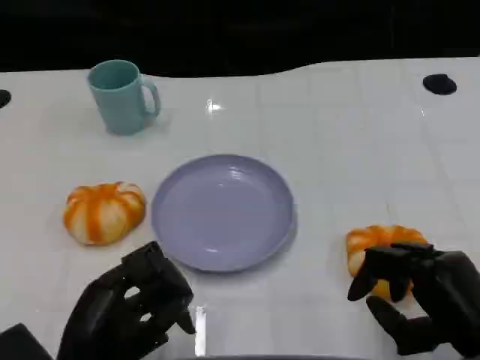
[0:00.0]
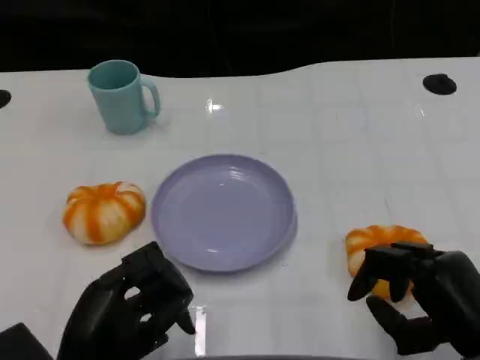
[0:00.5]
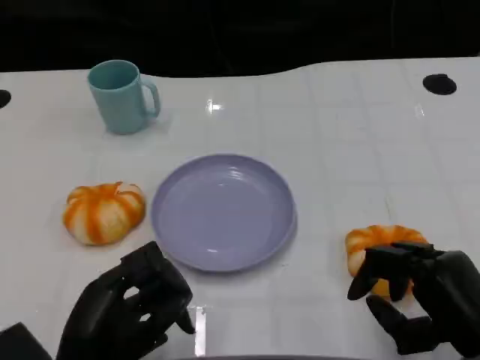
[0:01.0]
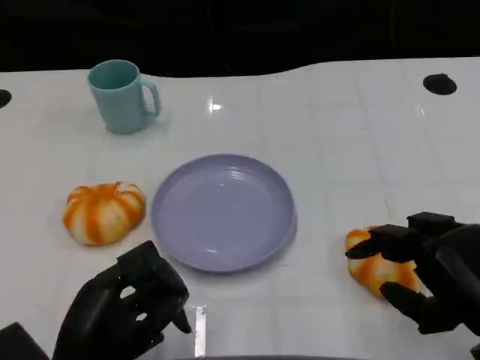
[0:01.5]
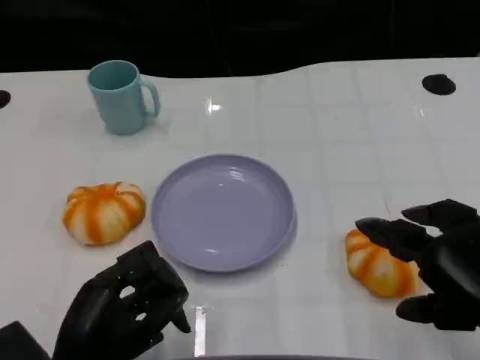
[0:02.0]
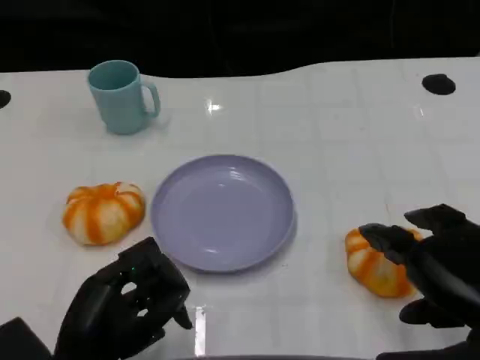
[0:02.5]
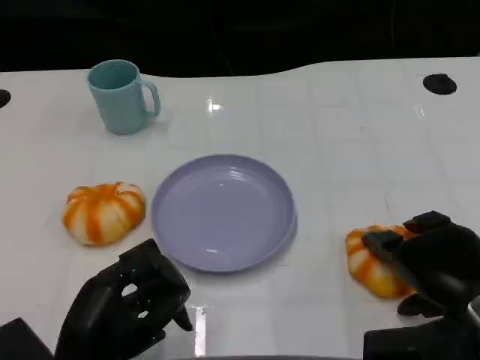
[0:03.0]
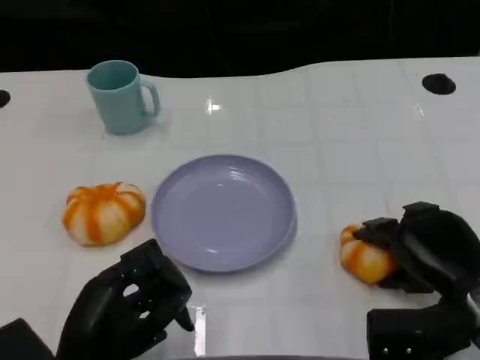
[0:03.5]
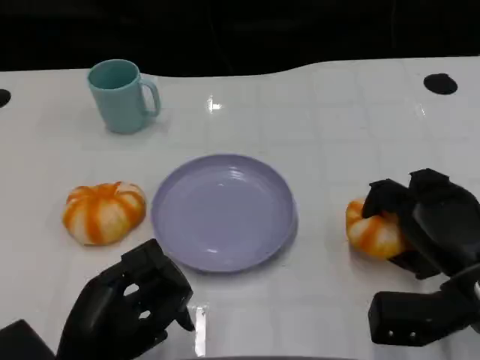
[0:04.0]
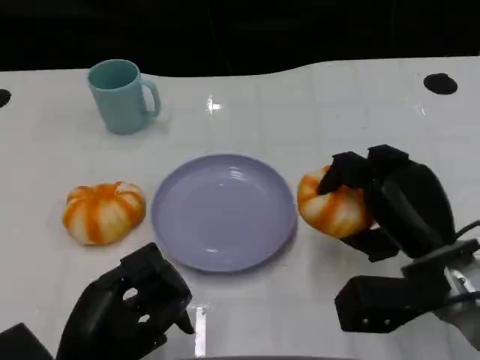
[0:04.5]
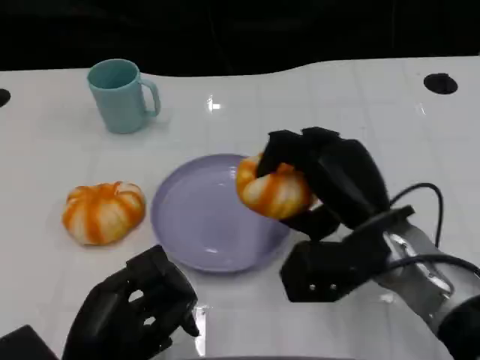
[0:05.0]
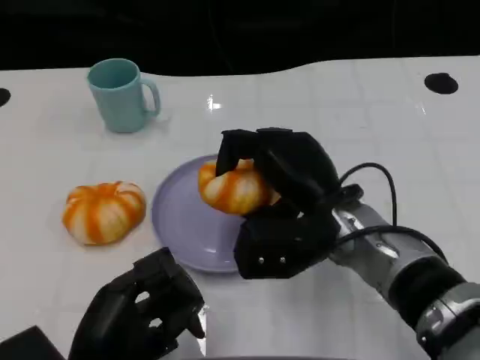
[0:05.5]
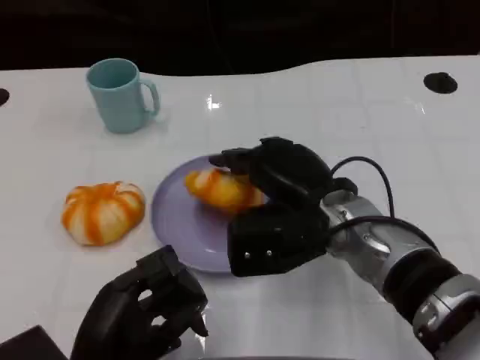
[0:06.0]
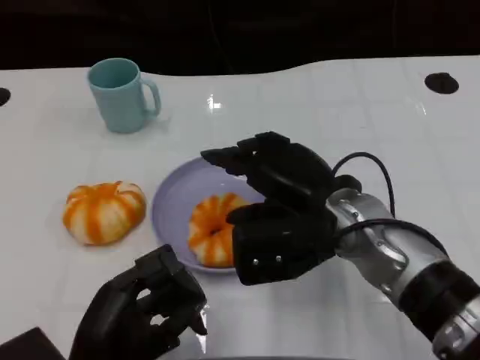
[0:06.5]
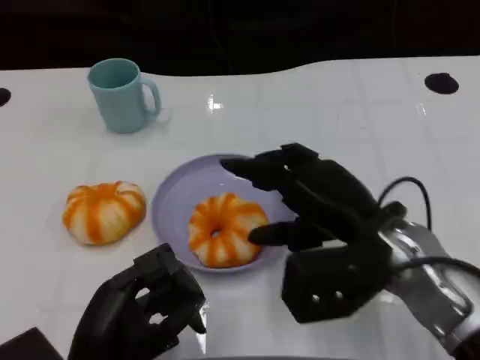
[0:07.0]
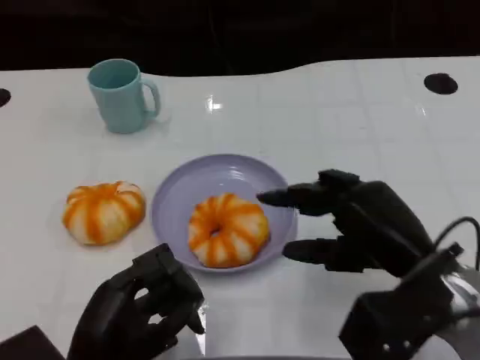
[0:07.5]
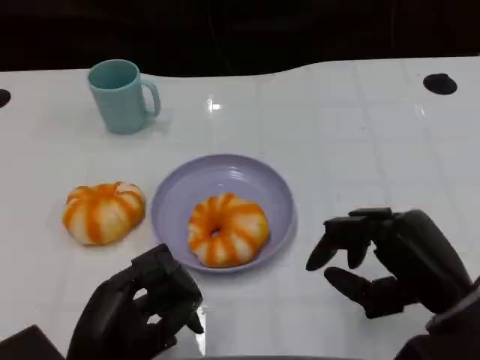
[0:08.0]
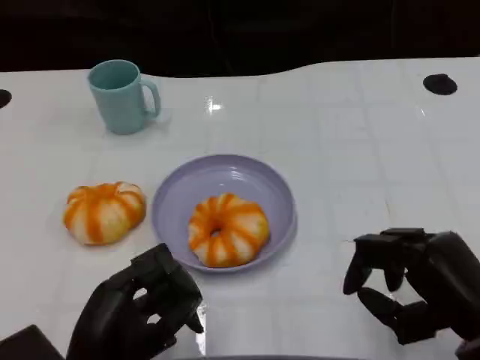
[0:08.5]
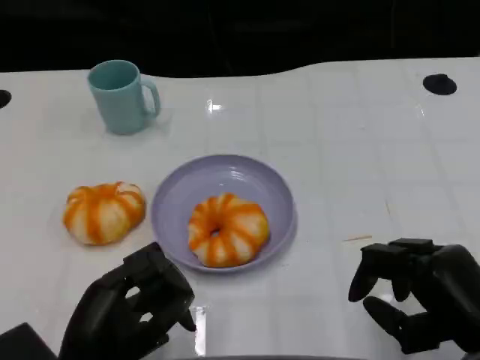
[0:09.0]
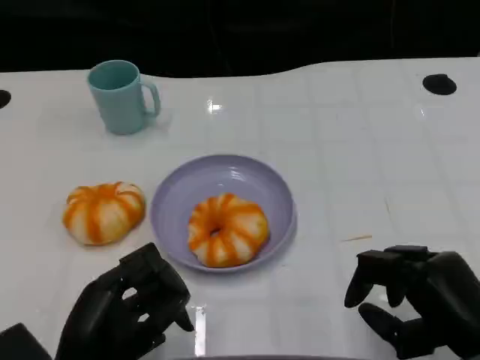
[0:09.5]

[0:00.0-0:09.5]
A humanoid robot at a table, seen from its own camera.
Task of the whole recording: Grasp the bread from the table and place it into the plate.
0:00.0 to 0:02.0: The right hand heads upward, covering roughly 10 cm.
0:02.0 to 0:04.0: The right hand moves forward and downward, about 15 cm.
0:04.0 to 0:05.5: The right hand moves to the left, about 15 cm.
0:05.5 to 0:07.5: The right hand goes roughly 10 cm to the right and backward.
0:07.5 to 0:09.5: The right hand goes about 5 cm backward.

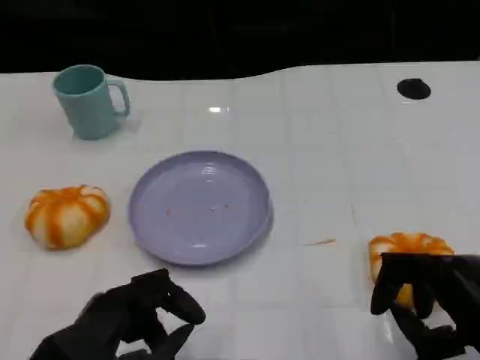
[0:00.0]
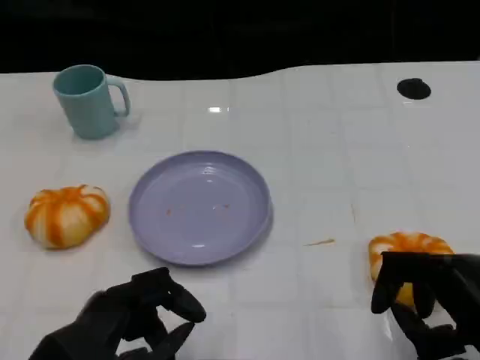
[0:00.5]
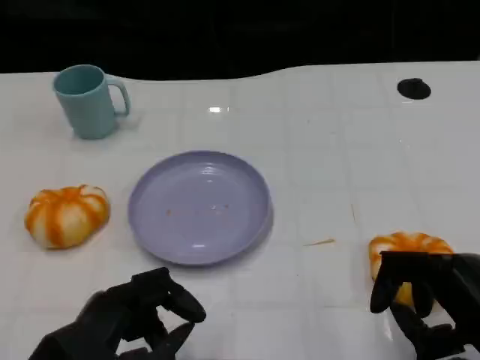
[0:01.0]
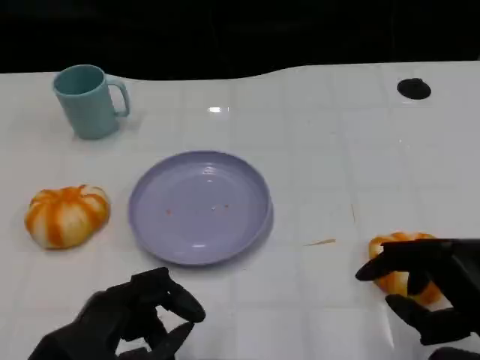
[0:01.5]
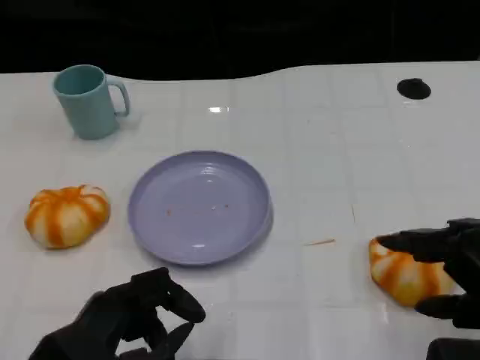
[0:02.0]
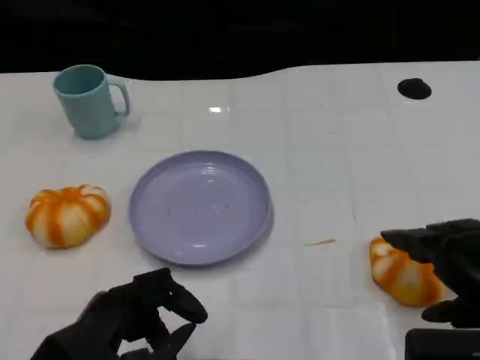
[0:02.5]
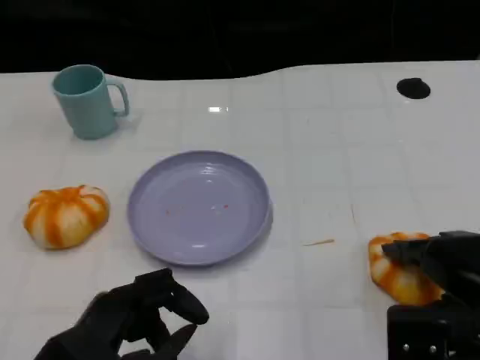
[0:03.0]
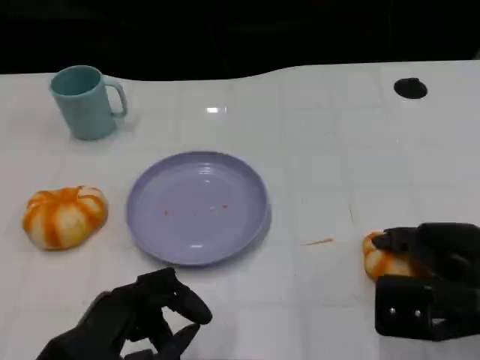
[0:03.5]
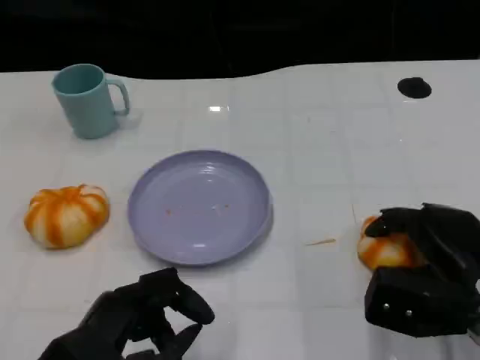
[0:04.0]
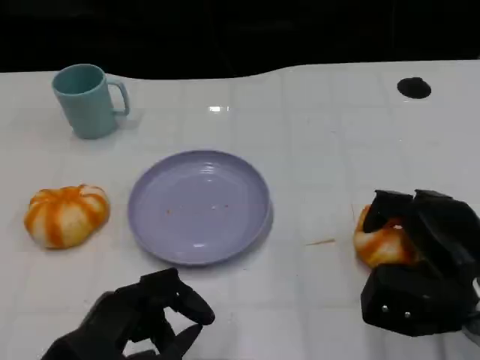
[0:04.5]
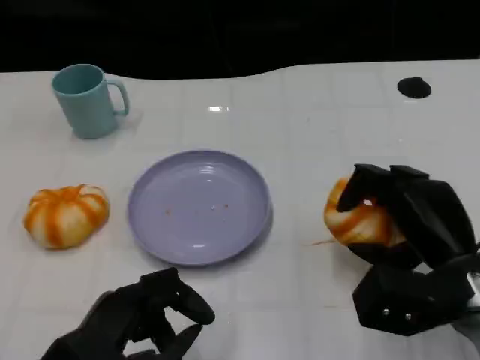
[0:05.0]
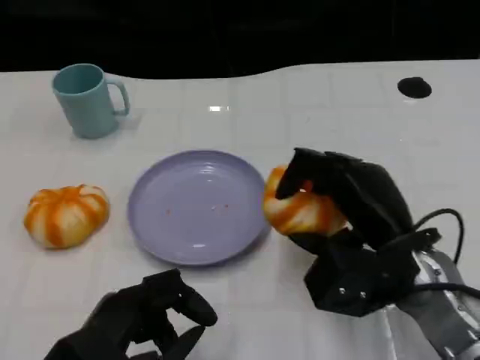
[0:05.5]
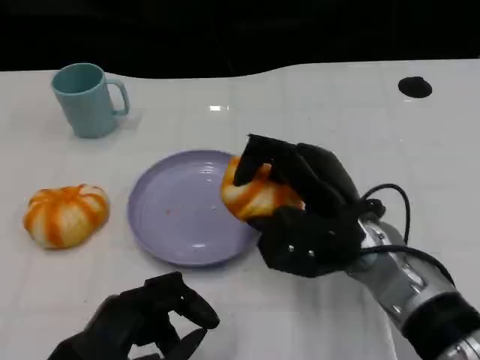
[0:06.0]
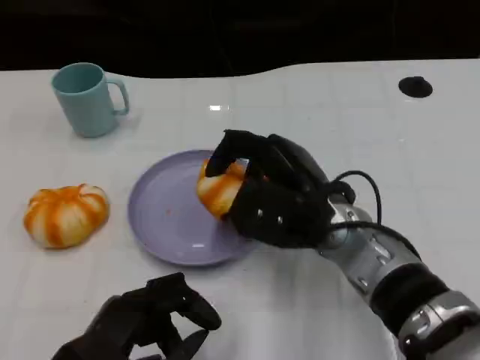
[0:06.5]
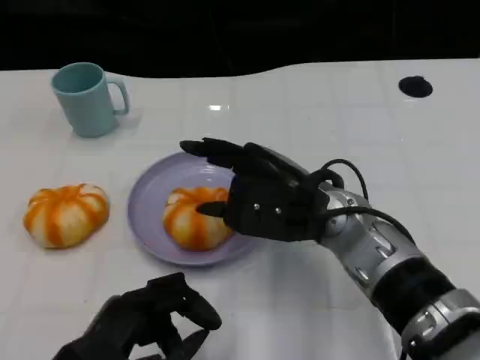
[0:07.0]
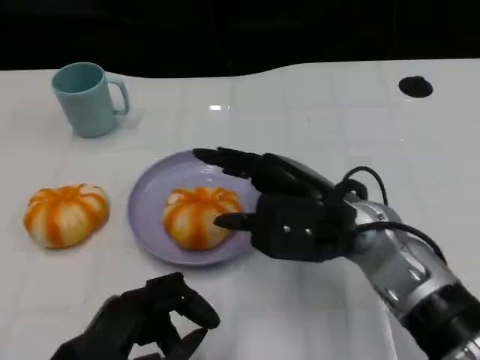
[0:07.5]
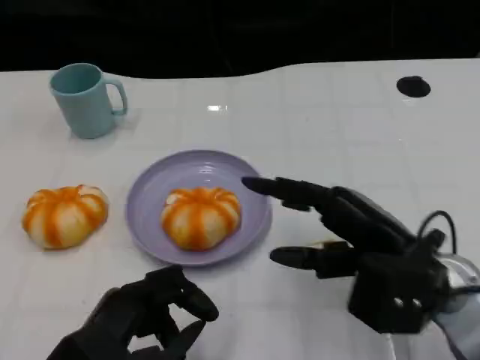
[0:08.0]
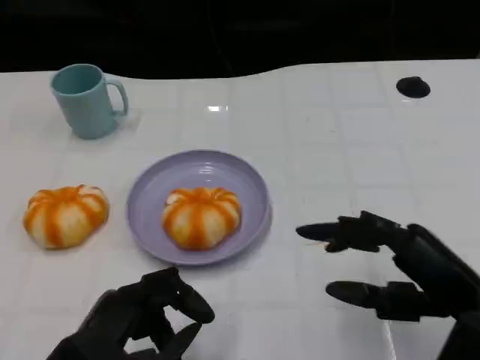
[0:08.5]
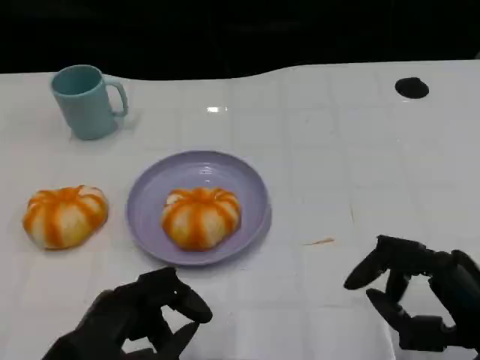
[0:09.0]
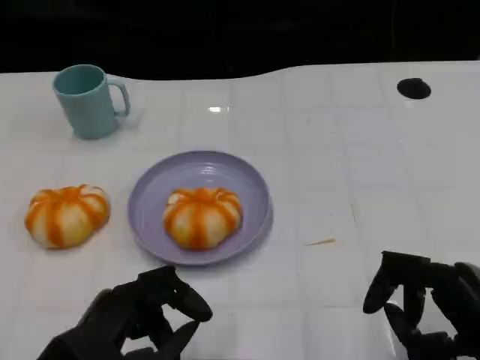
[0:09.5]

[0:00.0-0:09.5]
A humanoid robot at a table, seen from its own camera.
Task of the whole recording: Grasp the bread from the table and place it into the plate.
0:00.0 to 0:02.0: The right hand moves upward, approximately 5 cm.
0:02.0 to 0:04.0: The right hand travels downward and forward by about 15 cm.
0:04.0 to 0:05.5: The right hand heads to the left, covering approximately 10 cm.
0:07.5 to 0:09.5: The right hand heads backward and to the right, covering about 20 cm.
